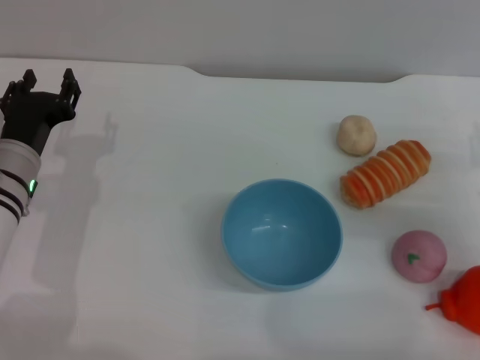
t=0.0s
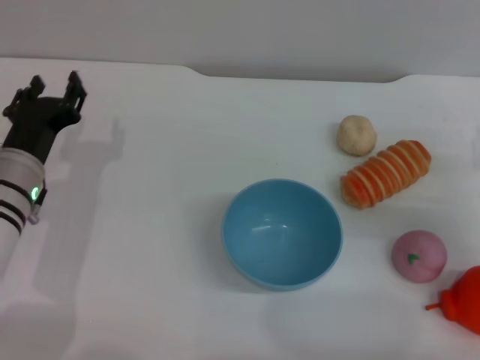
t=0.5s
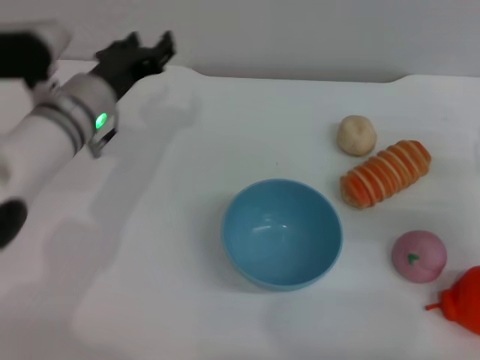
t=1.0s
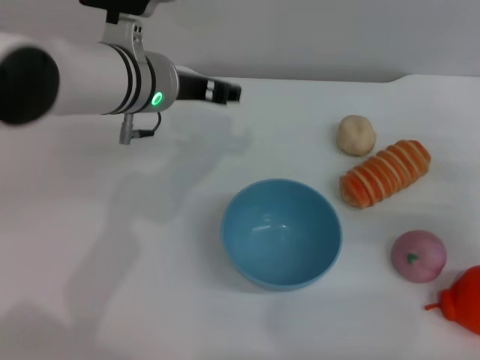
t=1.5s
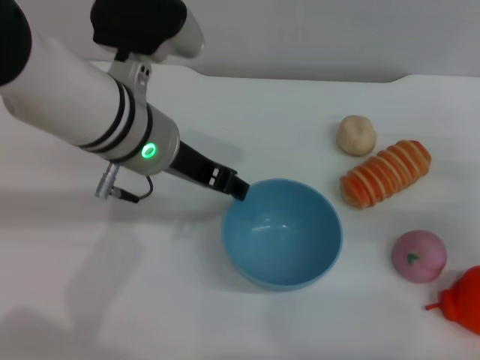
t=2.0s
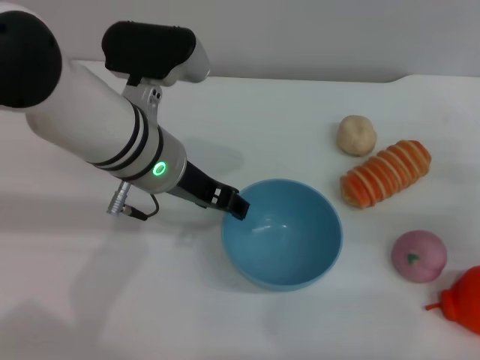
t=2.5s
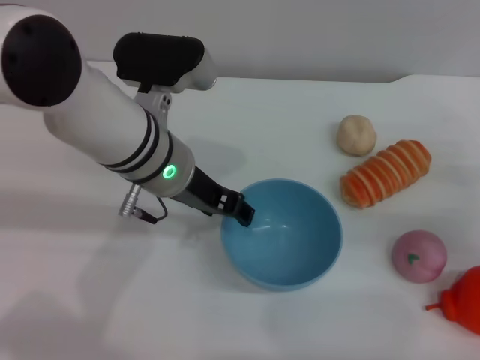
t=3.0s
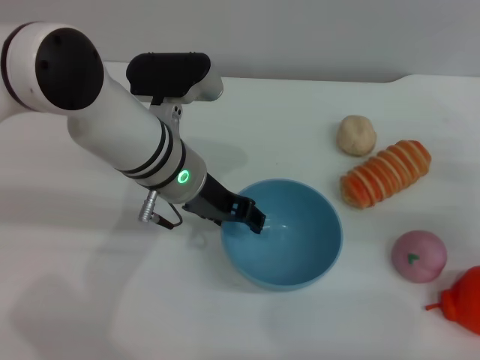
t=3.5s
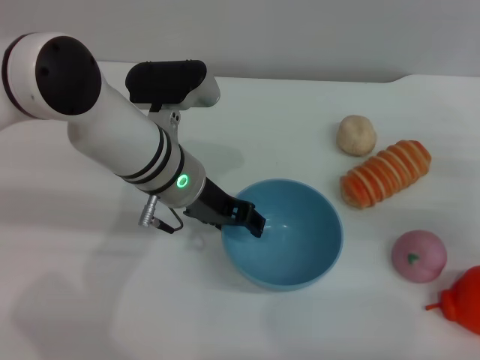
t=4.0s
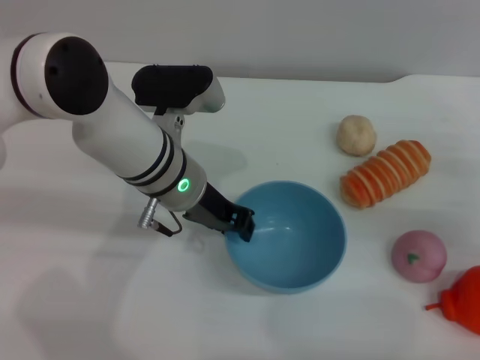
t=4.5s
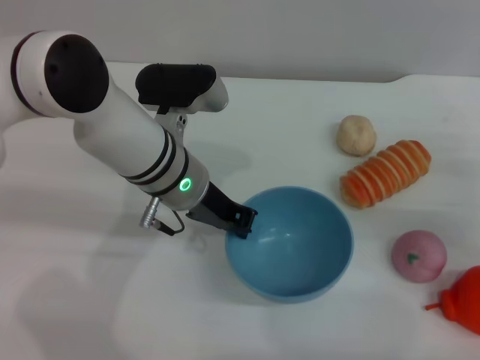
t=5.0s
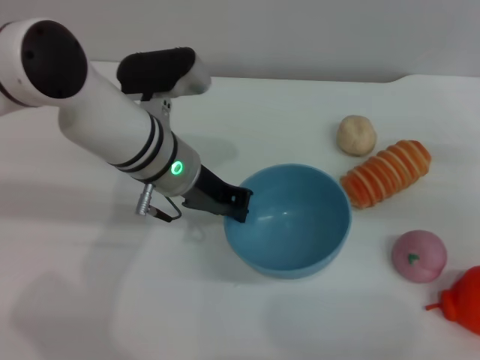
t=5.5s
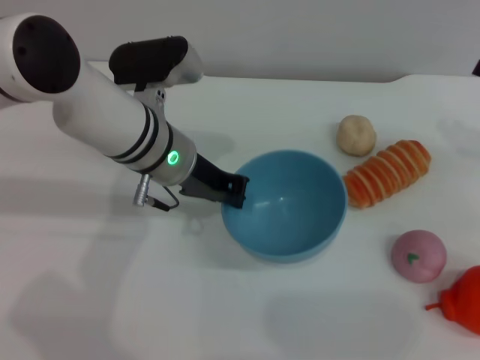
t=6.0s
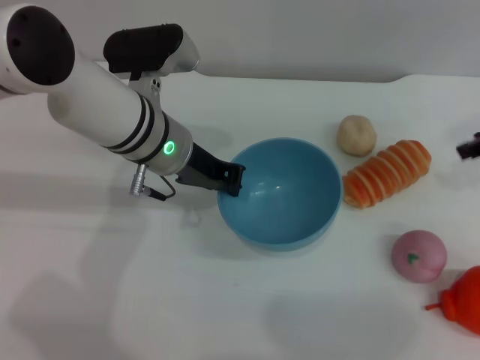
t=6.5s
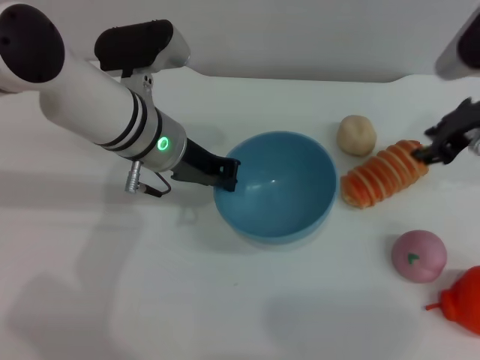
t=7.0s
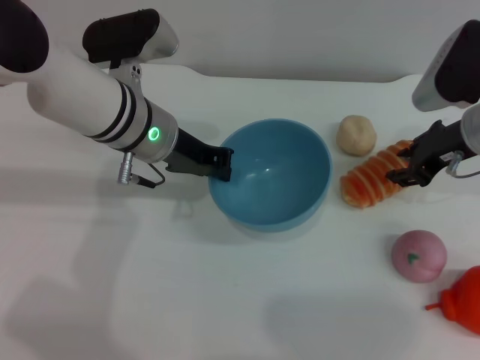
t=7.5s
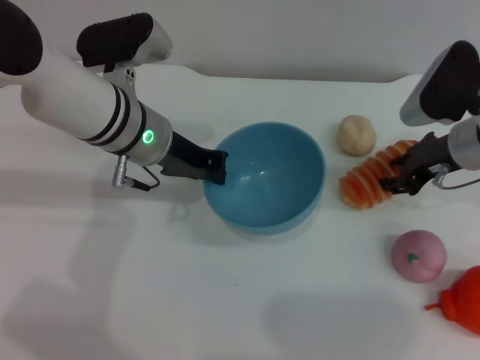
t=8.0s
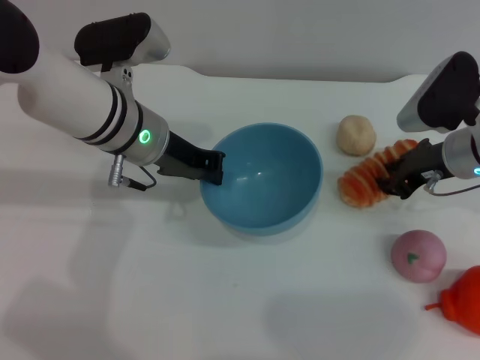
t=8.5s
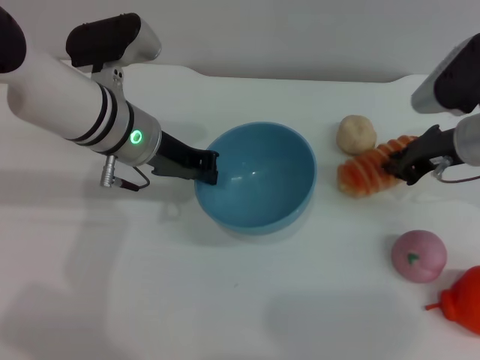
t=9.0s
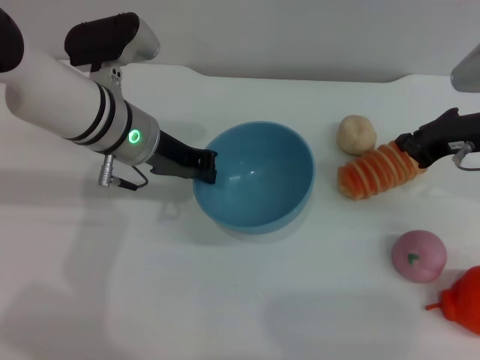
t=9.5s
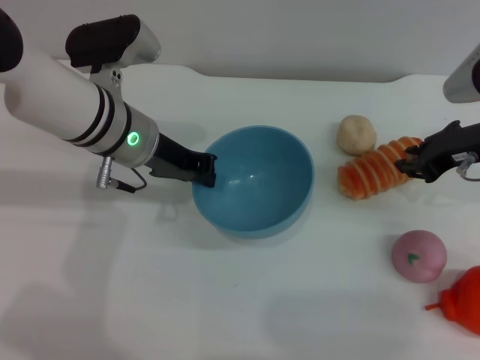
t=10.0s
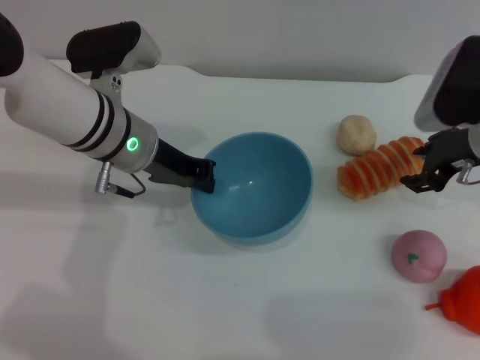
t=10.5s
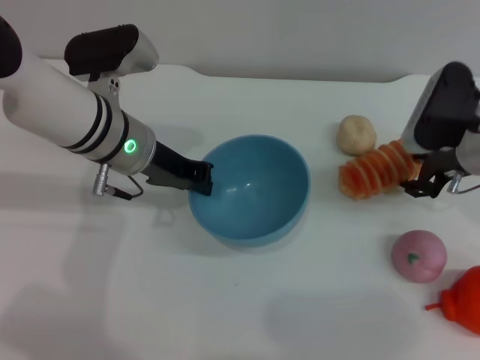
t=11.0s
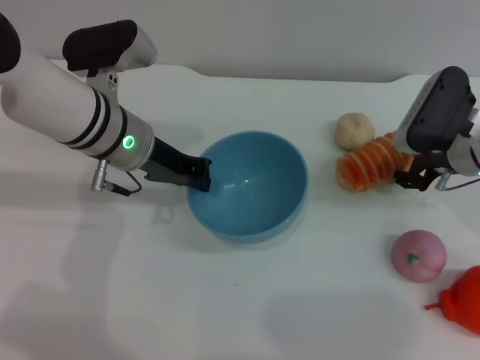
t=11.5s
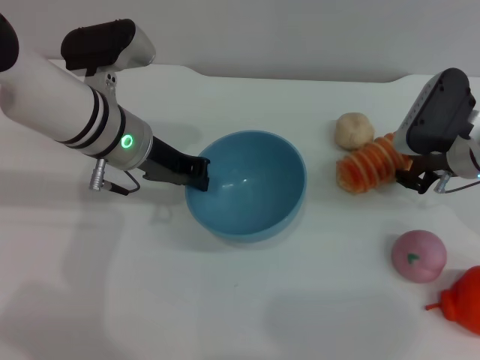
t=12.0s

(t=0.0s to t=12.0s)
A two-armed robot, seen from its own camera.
Task of the whole recording: put the bread into the blue bowl and pour it out repeatedly.
Step, t=0.0s - t=6.0s: Pick up the bowl with the left gripper.
t=0.0s - t=2.0s: The left gripper travels upward and to the right by roughly 20 cm.
t=2.0s - t=4.0s: The left gripper goes some 5 cm downward.
t=4.0s - t=6.0s: The left gripper closes up; the right gripper shifts some 10 cm upward.
t=6.0s - t=8.0s: The right gripper is displaced to the left by roughly 15 cm.
t=8.0s - t=10.0s: The right gripper closes.
t=10.0s - t=12.0s: The right gripper goes roughly 5 cm downward, and opens its fingers.

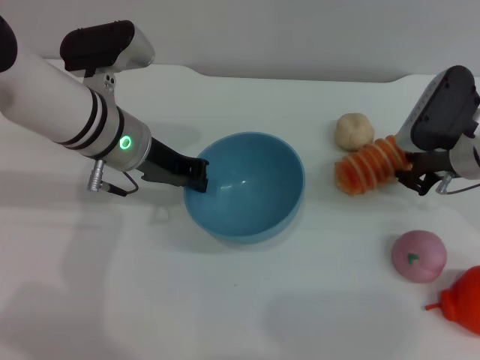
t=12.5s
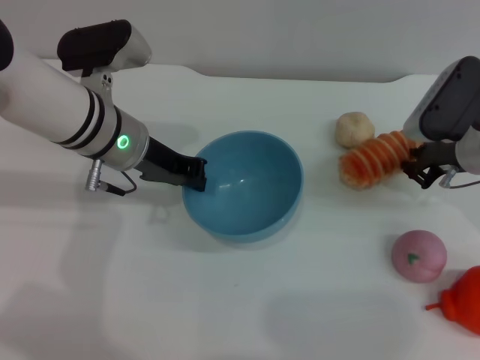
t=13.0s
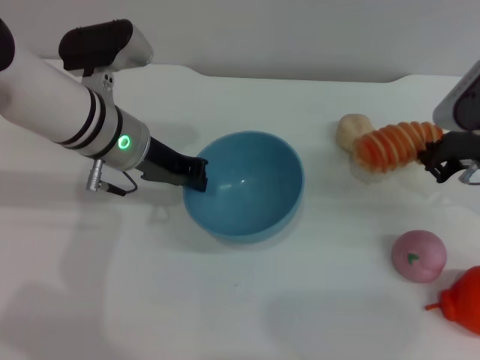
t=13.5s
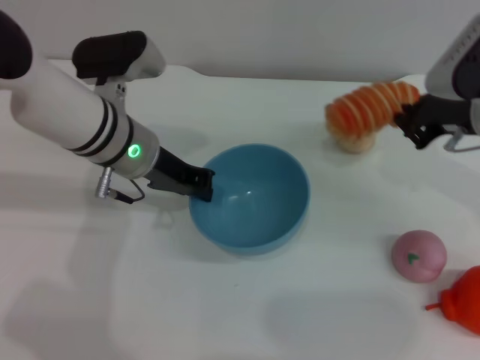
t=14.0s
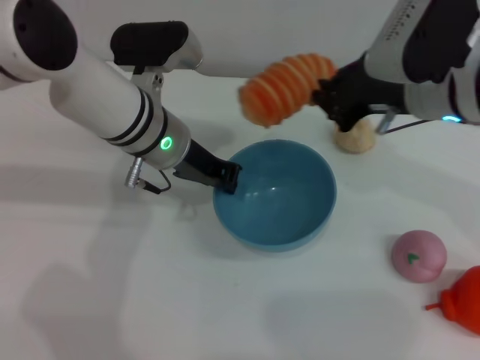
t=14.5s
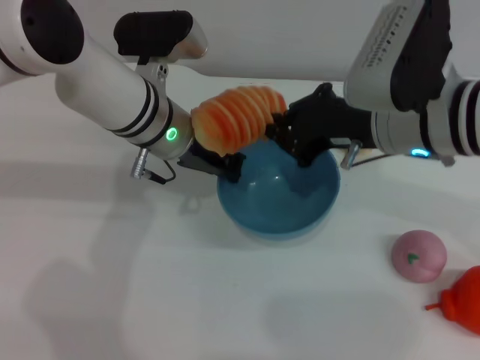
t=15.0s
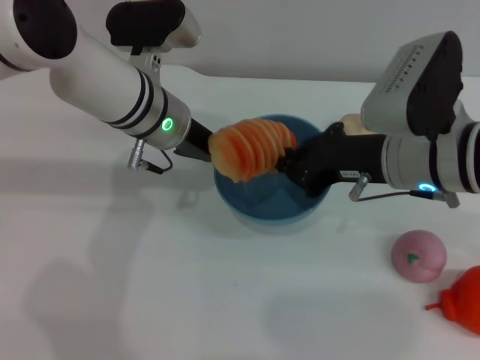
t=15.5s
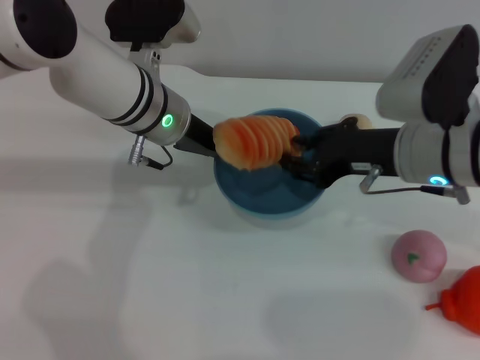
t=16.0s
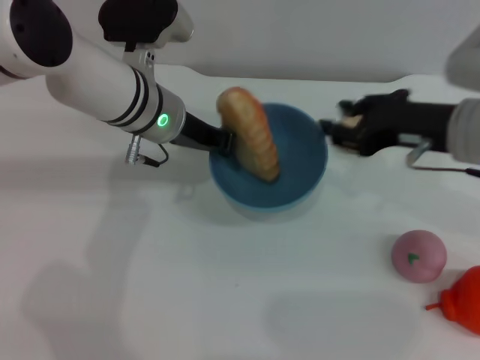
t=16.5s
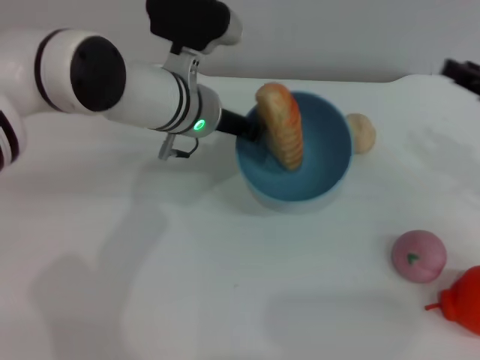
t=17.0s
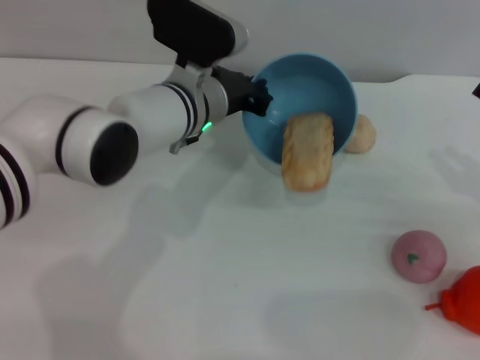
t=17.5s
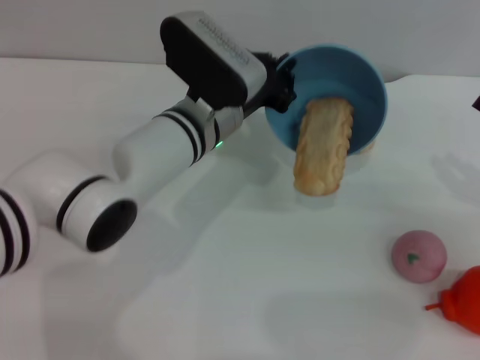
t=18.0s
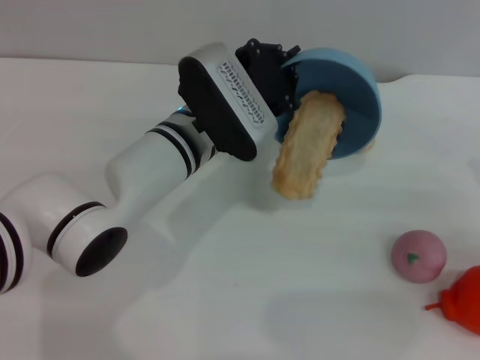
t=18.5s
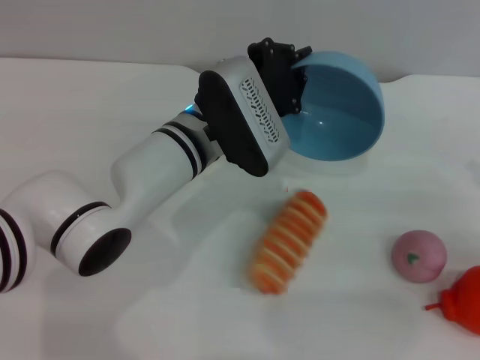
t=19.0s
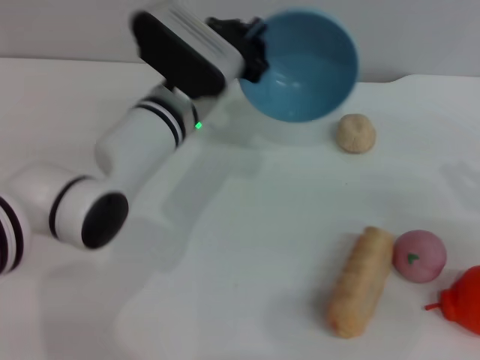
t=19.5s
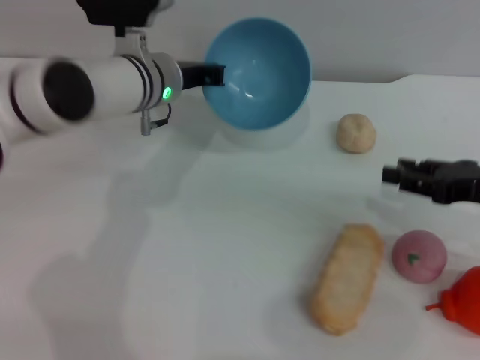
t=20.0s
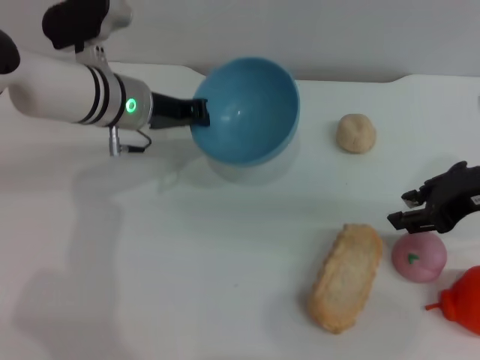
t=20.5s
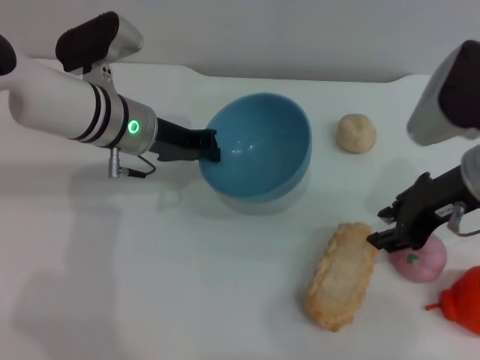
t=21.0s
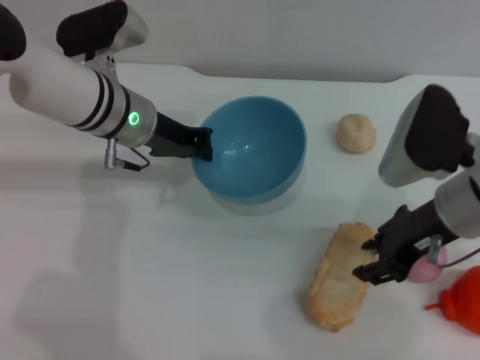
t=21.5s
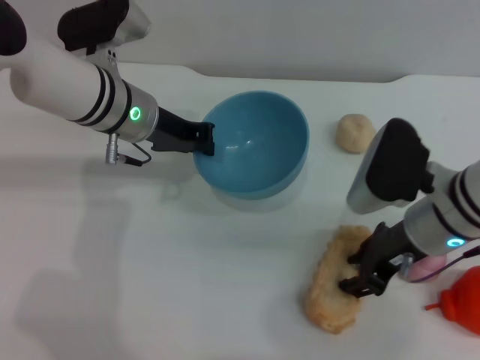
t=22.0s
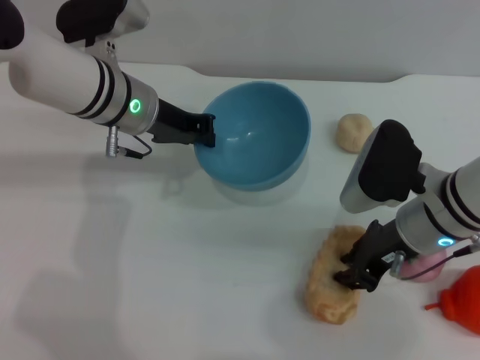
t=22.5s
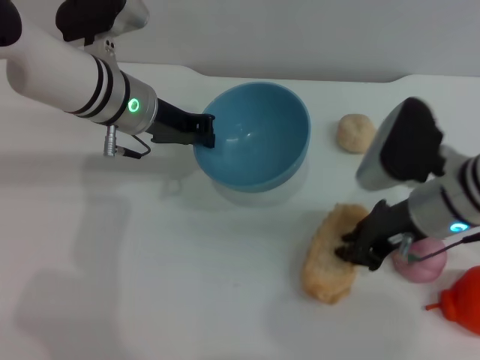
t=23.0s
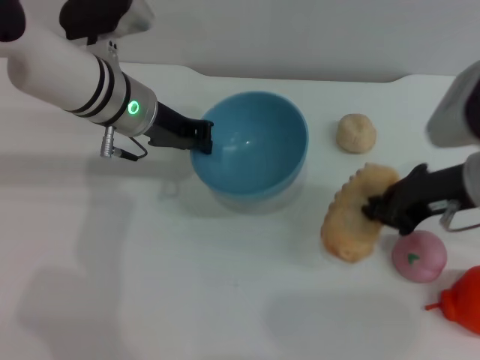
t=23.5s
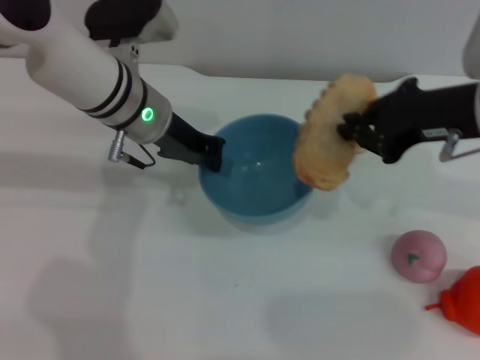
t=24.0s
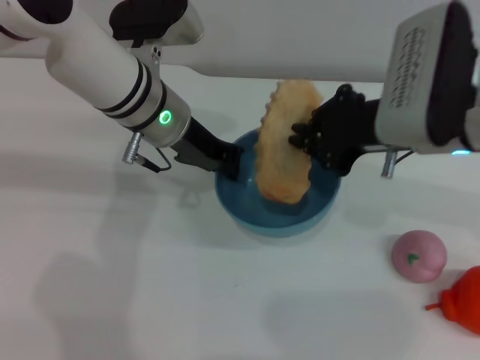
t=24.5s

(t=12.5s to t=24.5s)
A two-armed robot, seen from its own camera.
Task of the whole recording: put the bread into the blue bowl and pour it out repeatedly.
Step, t=14.0s - t=16.0s: Place the bread into the bowl.
Step, t=16.5s - t=19.5s: Pour the bread out of the bowl.
Step, t=20.0s - t=23.5s: Pick up the bread with the right gripper.
t=12.5s - t=14.5s: The right gripper travels upward and to the left by about 15 cm, and closes its fingers.
t=14.5s - t=16.5s: The right gripper shifts by approximately 5 cm, and opens up.
t=16.5s - t=18.5s: The left gripper moves about 5 cm. Meanwhile the right gripper shifts approximately 20 cm to the right, backward and downward.
t=18.5s - t=20.5s: The left gripper moves to the left and forward, about 10 cm, while the right gripper goes roughly 15 cm to the left, upward and forward.
t=20.5s - t=22.5s: The right gripper heads downward and to the left, covering about 10 cm.
t=22.5s - t=24.5s: The right gripper is displaced upward by approximately 10 cm, and closes up.

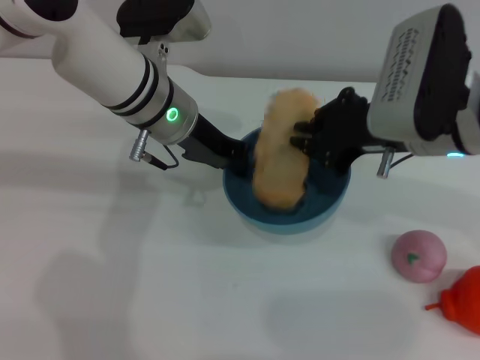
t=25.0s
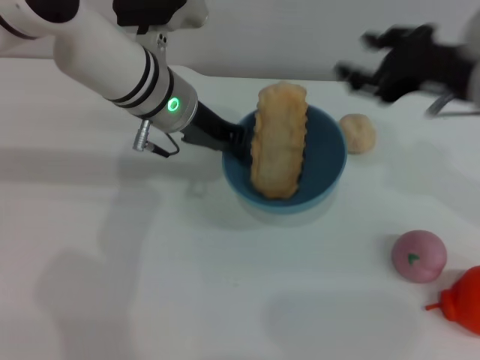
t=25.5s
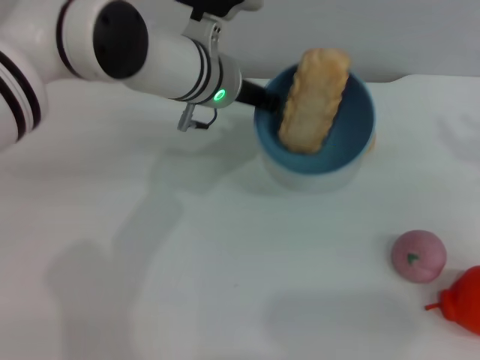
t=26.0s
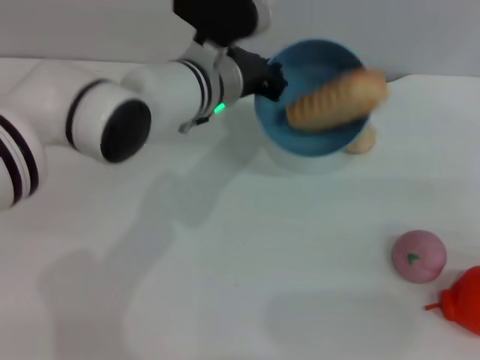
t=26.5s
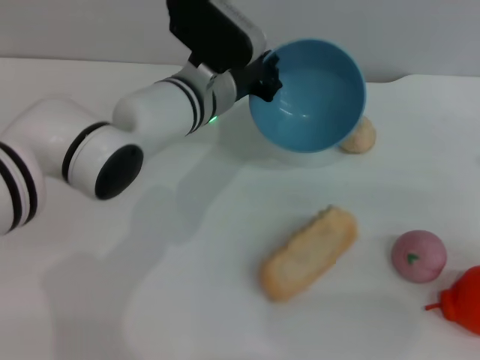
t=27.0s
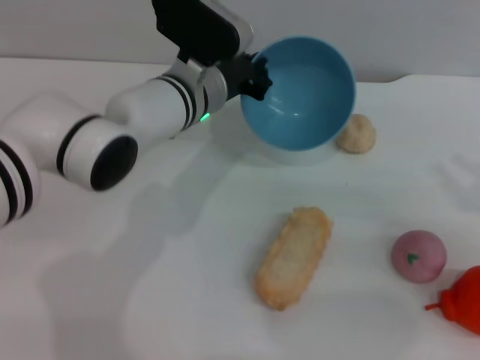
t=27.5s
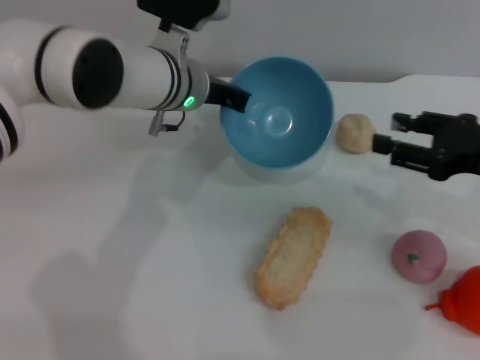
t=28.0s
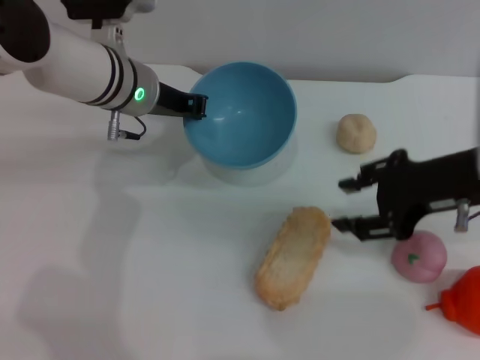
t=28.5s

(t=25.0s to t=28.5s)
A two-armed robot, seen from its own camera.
Task of the whole recording: put the bread into the blue bowl and pour it out repeatedly.
Step, t=26.0s - t=27.0s: Pour the bread out of the bowl.
t=25.0s - t=27.0s: The right gripper heads to the right and backward, covering some 25 cm, and opens up; the left gripper shifts by approximately 5 cm.
t=27.0s - t=28.5s: The left gripper goes roughly 10 cm to the left; the right gripper heads to the left and forward, covering some 15 cm.
